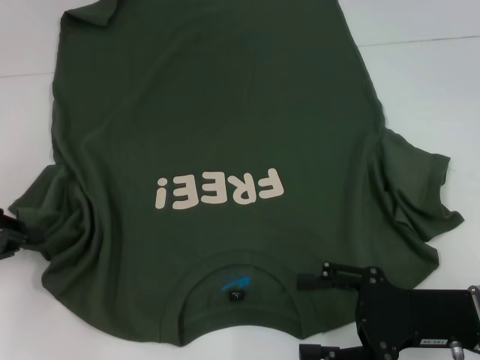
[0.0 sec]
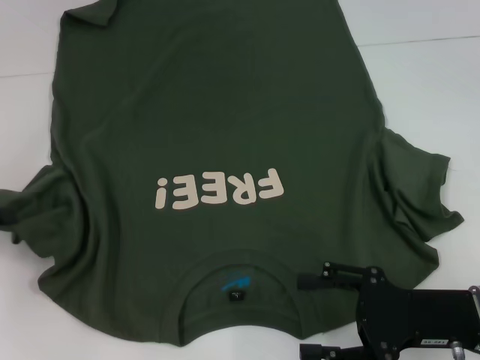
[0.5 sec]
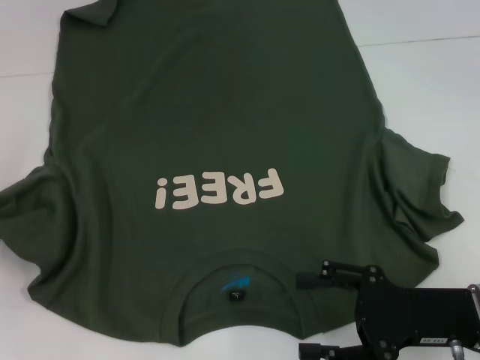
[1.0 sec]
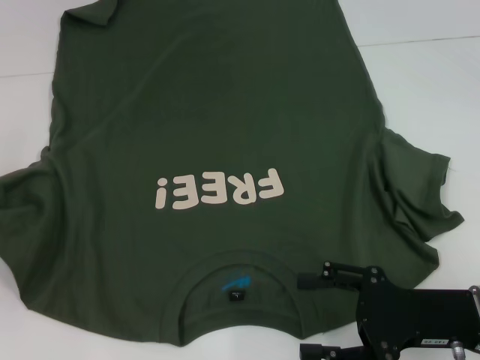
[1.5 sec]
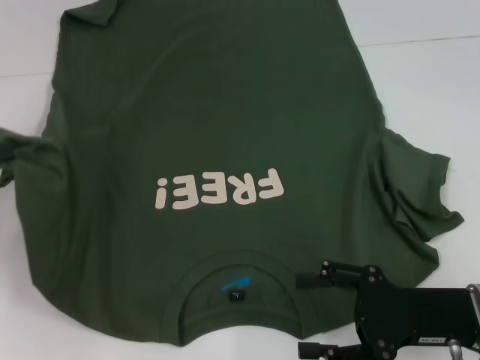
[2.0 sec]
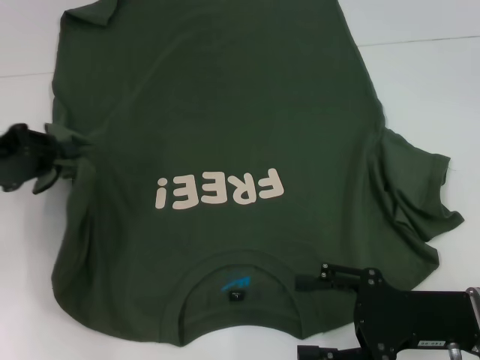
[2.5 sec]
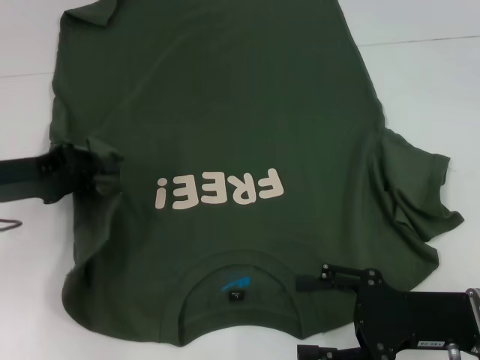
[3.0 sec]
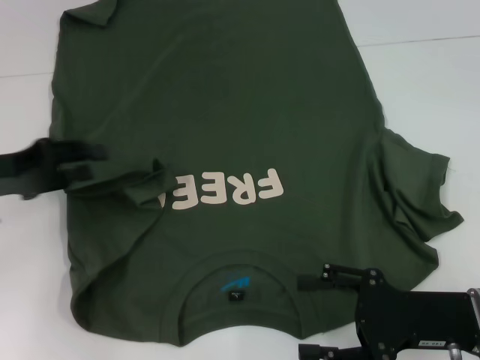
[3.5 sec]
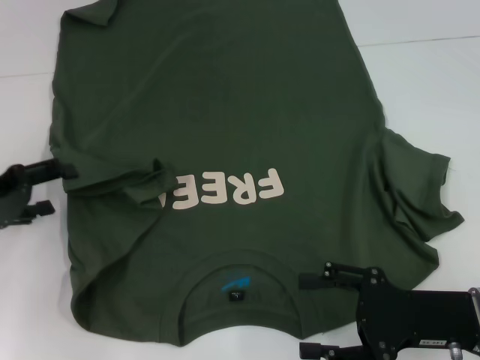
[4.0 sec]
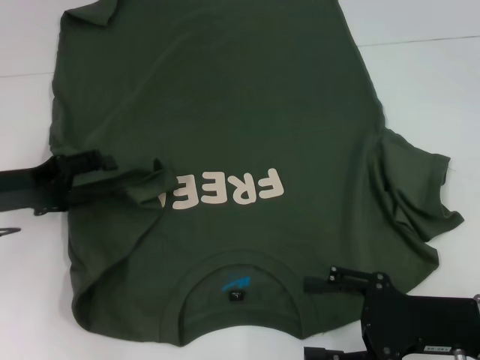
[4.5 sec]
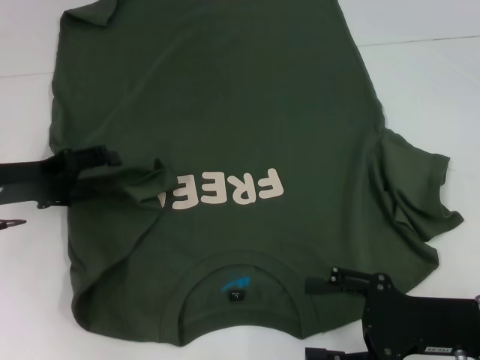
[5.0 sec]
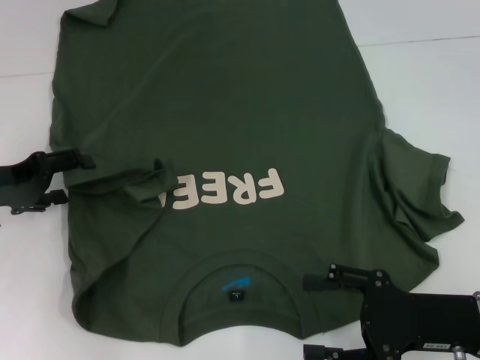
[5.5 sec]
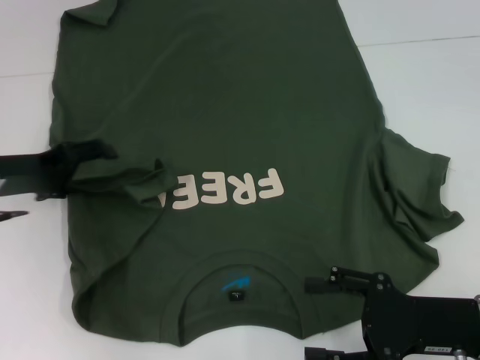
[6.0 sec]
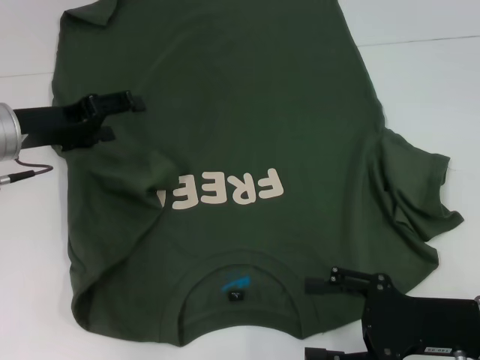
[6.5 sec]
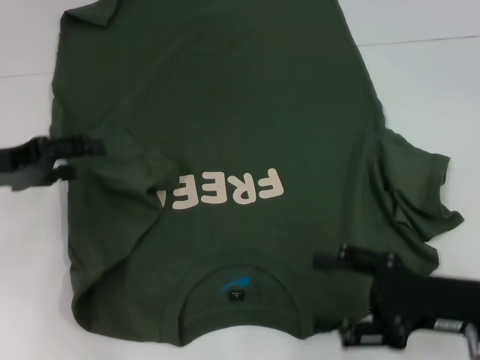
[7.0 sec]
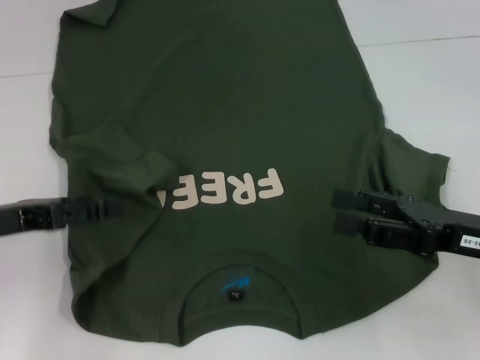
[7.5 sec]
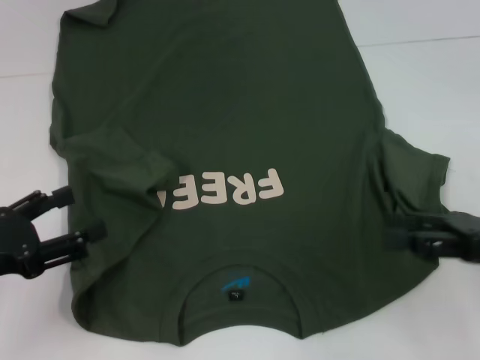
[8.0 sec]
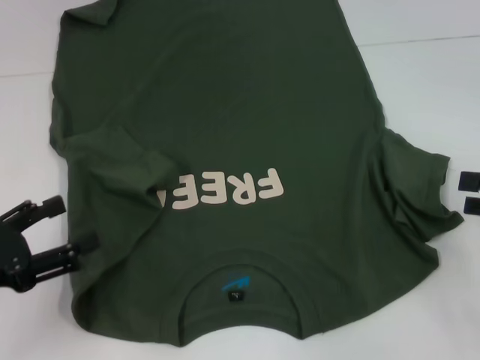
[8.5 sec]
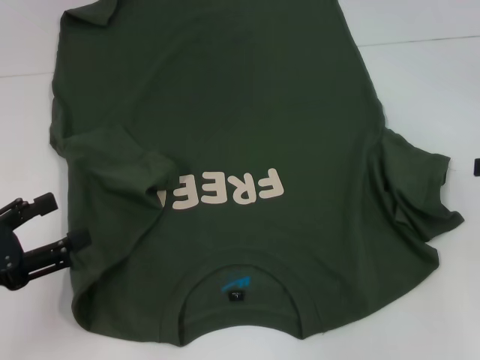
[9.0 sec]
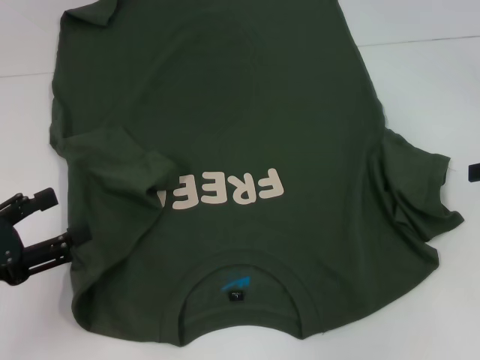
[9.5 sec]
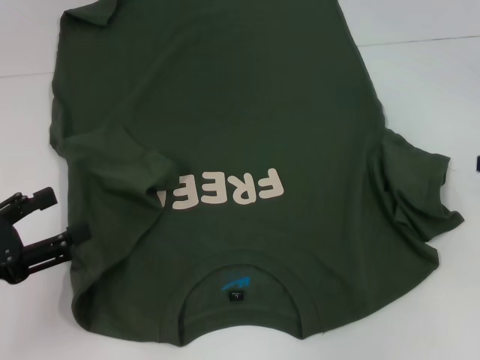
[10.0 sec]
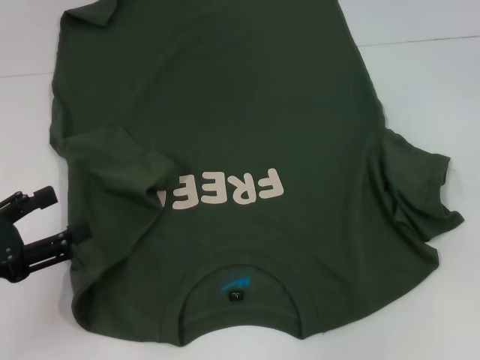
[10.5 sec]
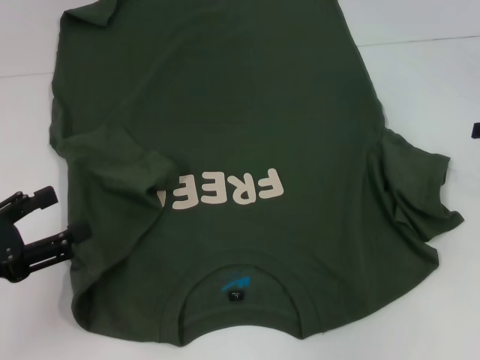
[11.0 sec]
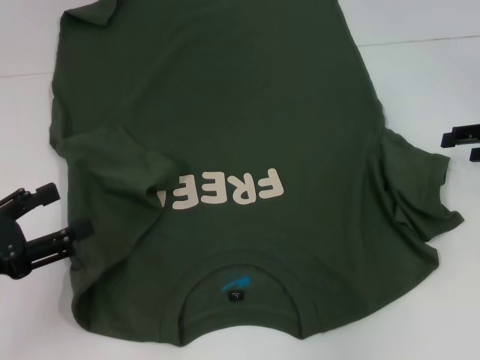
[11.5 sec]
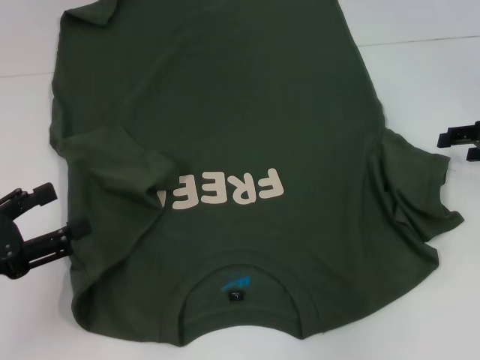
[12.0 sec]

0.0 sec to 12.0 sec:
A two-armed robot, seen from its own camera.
Step, 0.0 sec to 7.0 sec: Fold the bottom left sleeve with your left hand.
0.0 sec to 2.0 sec: The left gripper goes about 5 cm upward.
2.0 sec to 4.0 sec: The left gripper moves downward, some 5 cm, and opens its fingers.
4.0 sec to 6.0 sec: The left gripper shifts by about 5 cm.
6.0 sec to 8.0 sec: The left gripper moves backward, roughly 15 cm; the right gripper travels to the right and upward by some 10 cm.
8.0 sec to 10.0 sec: The right gripper travels to the right, forward and upward by about 15 cm.
10.0 sec to 12.0 sec: The right gripper moves some 10 cm.

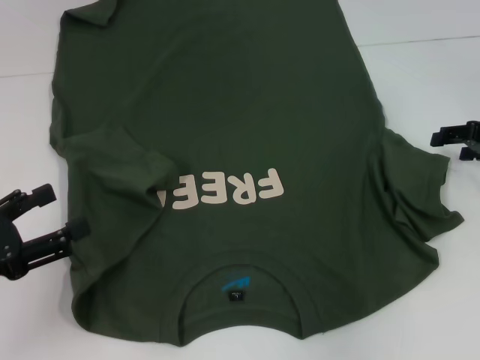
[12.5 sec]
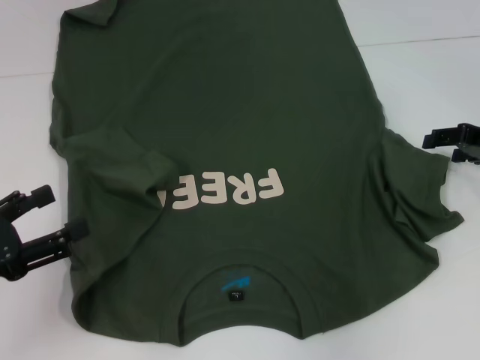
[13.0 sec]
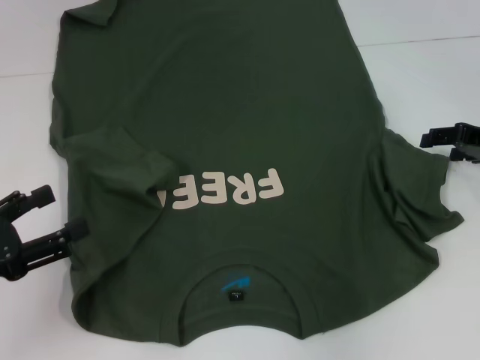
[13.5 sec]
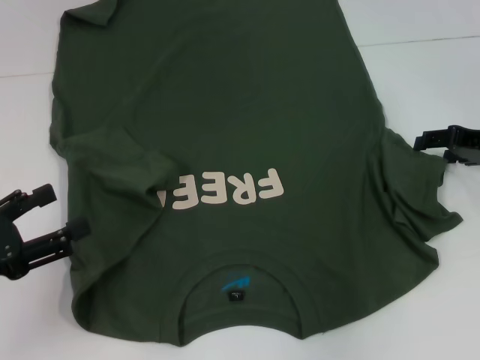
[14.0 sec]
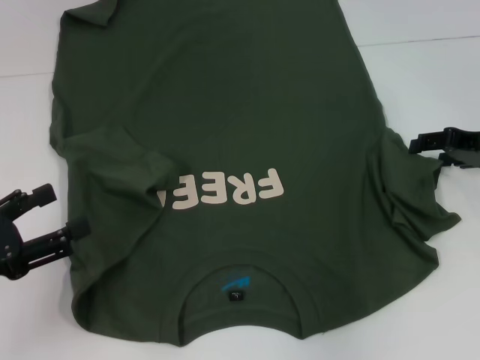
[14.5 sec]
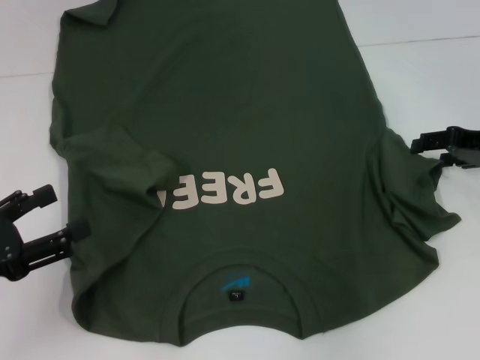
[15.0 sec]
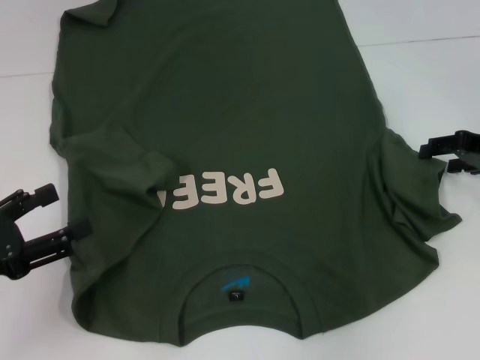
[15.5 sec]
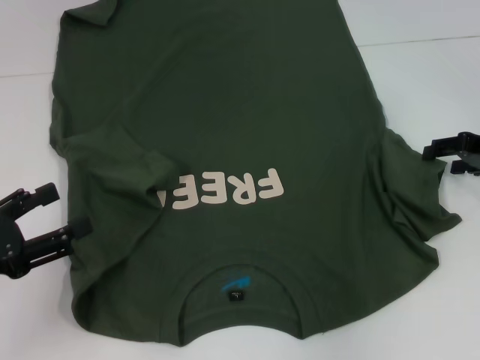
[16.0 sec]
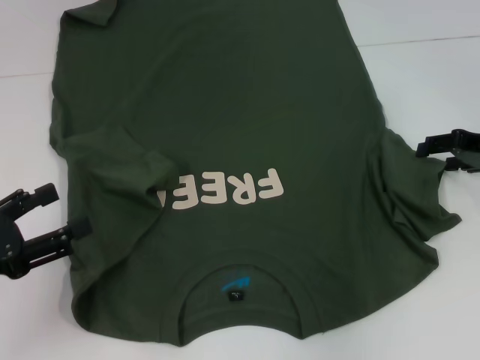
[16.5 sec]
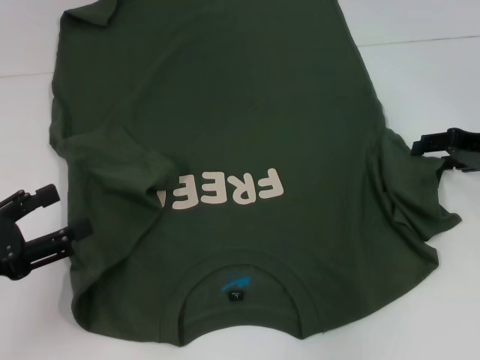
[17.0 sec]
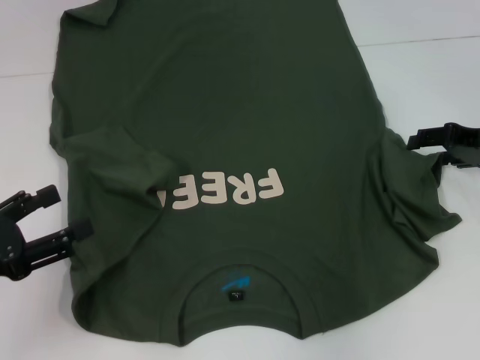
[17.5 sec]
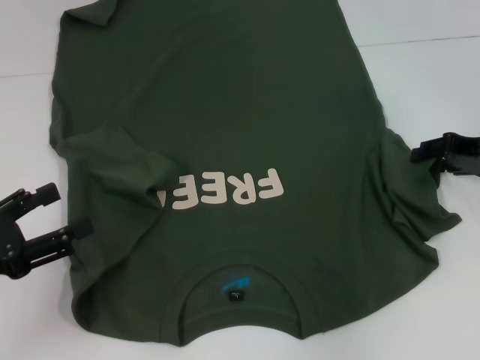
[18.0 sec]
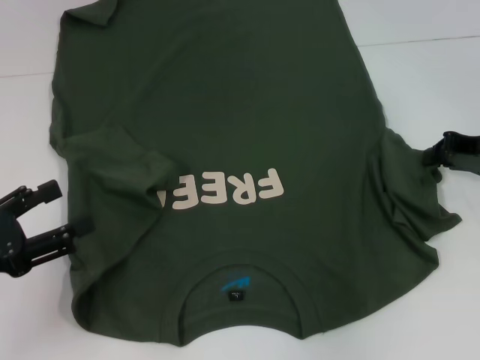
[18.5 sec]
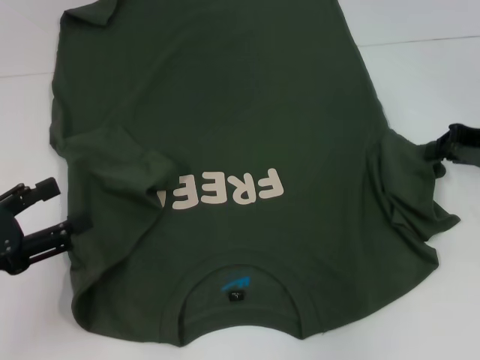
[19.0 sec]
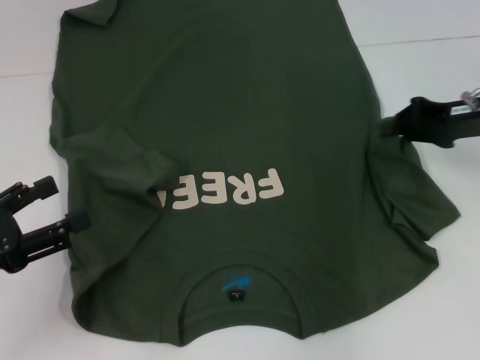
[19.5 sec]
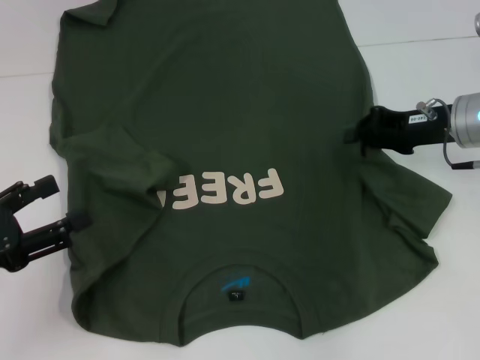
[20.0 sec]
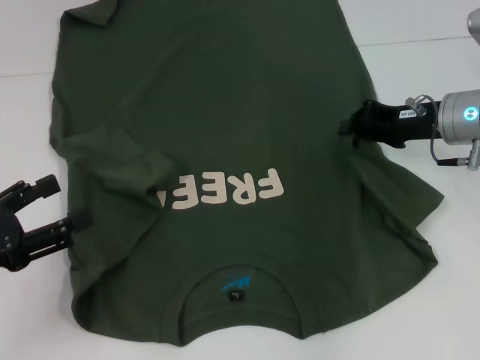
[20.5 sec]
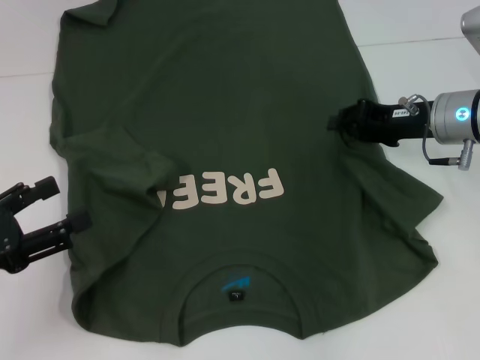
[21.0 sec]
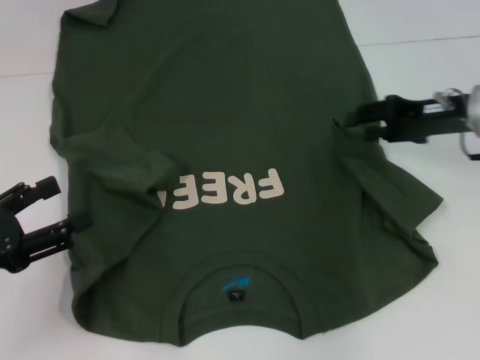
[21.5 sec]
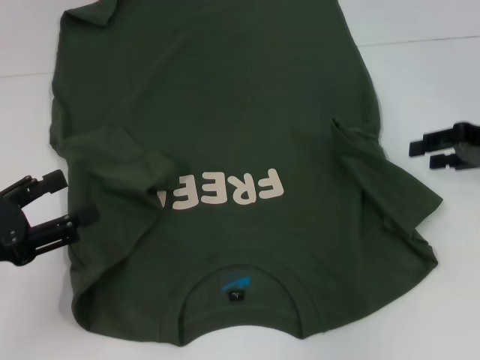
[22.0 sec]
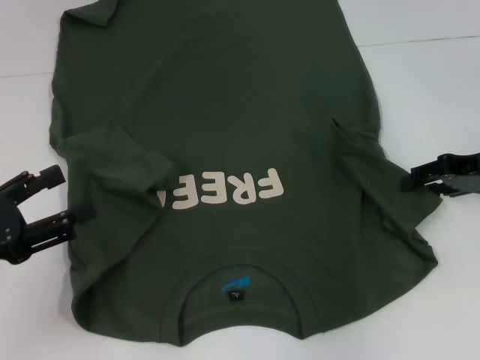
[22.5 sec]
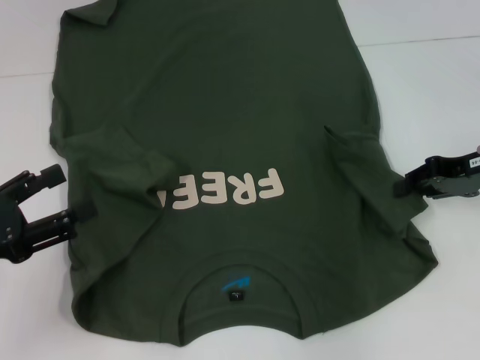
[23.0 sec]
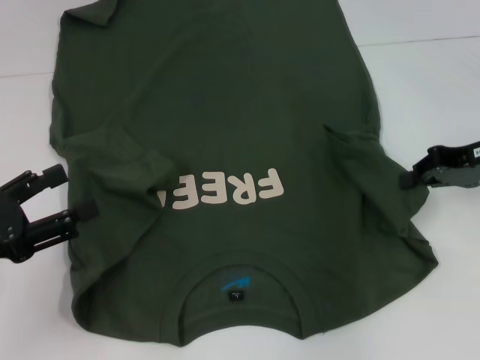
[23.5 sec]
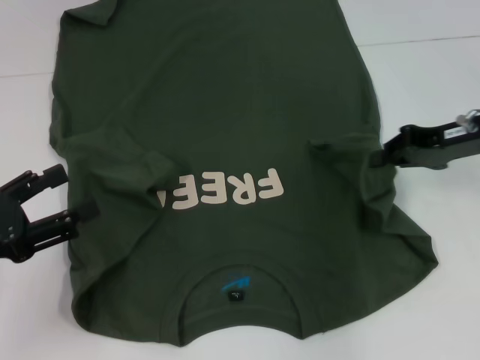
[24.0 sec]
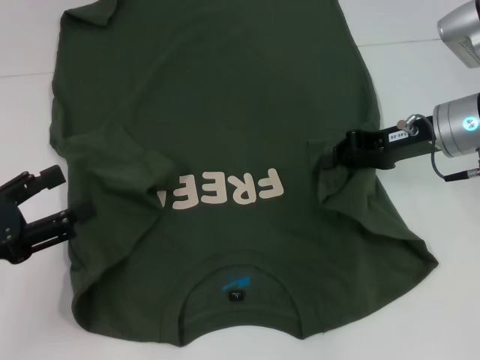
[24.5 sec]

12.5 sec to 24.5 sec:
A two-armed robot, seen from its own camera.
12.5 sec to 16.5 sec: The grippers stay close to where they were, moving slightly.
16.5 sec to 18.5 sec: The right gripper closes its fingers.
18.5 sec to 20.5 sec: The right gripper is displaced to the left by some 10 cm.
20.5 sec to 22.5 sec: The right gripper goes some 5 cm to the right, and opens its fingers.
22.5 sec to 24.5 sec: The right gripper goes about 10 cm to the left, and closes up.

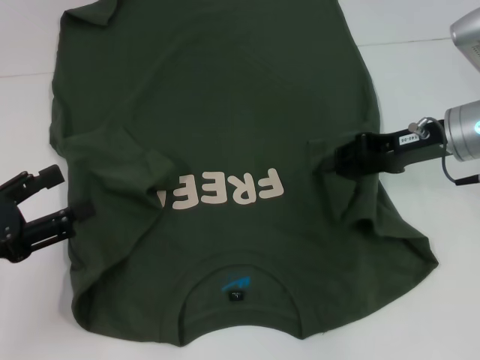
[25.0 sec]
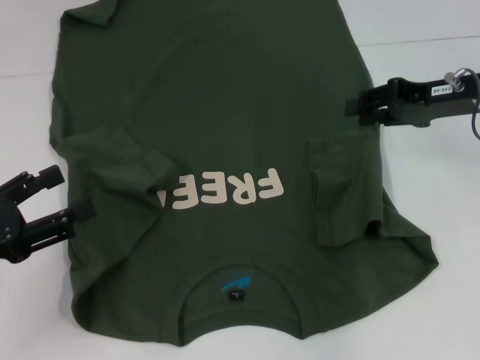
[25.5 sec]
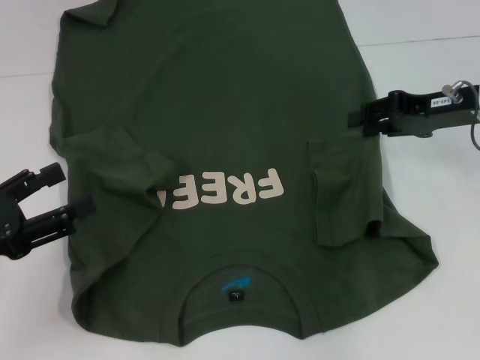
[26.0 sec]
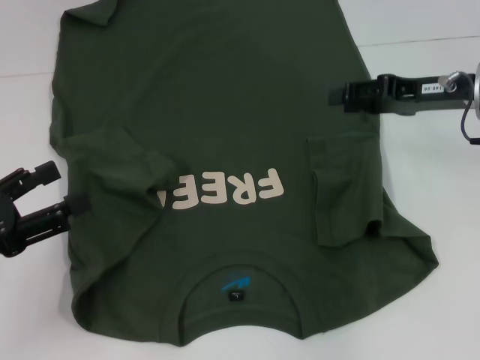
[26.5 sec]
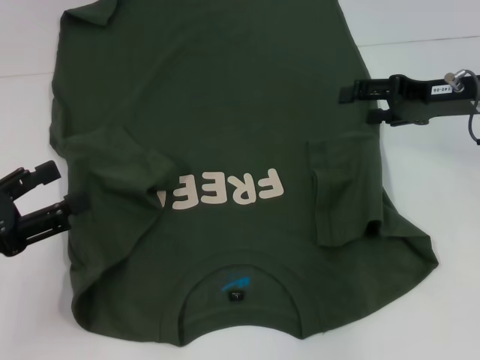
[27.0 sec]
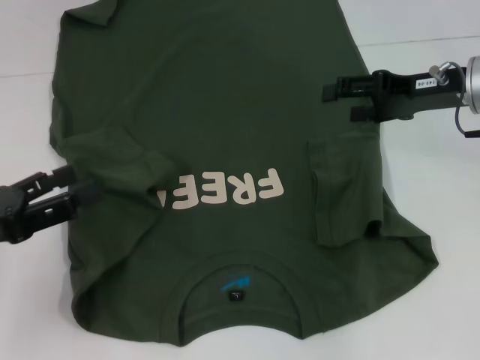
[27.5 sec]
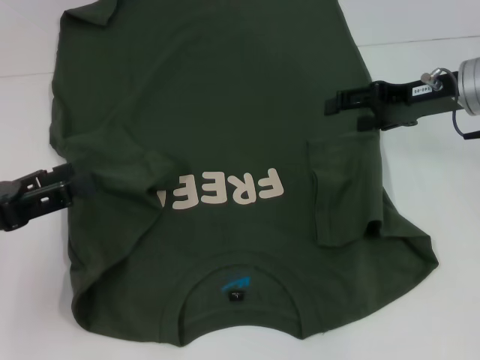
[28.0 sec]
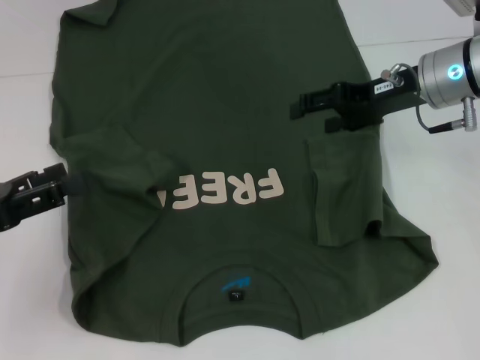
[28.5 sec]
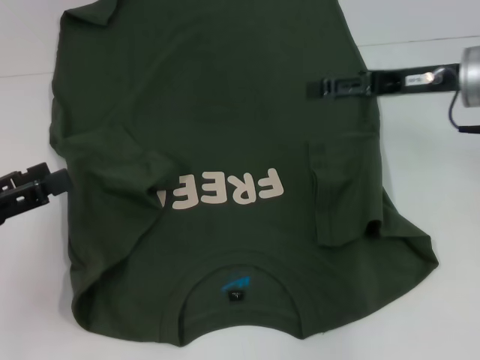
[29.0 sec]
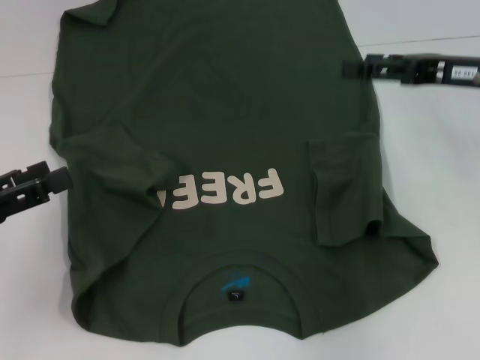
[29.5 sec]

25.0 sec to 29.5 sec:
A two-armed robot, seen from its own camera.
25.0 sec to 27.0 sec: The right gripper opens up.
